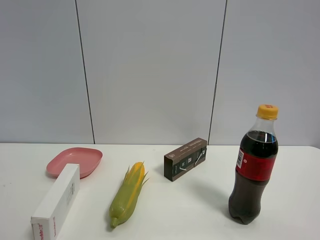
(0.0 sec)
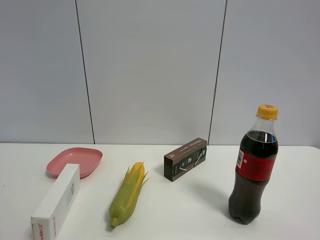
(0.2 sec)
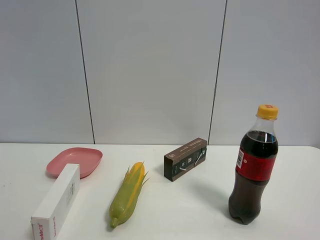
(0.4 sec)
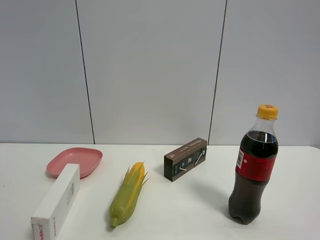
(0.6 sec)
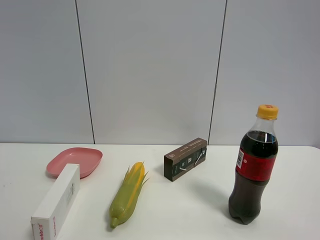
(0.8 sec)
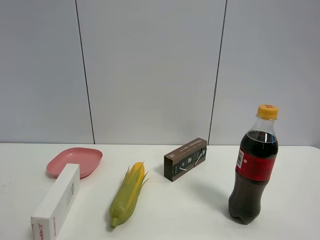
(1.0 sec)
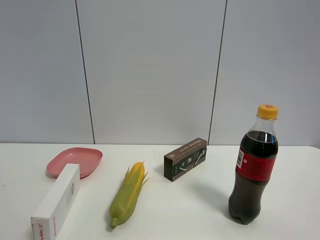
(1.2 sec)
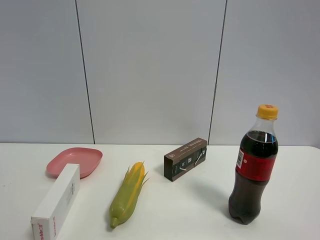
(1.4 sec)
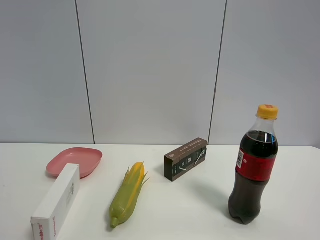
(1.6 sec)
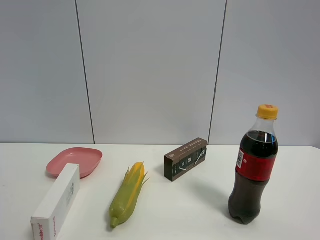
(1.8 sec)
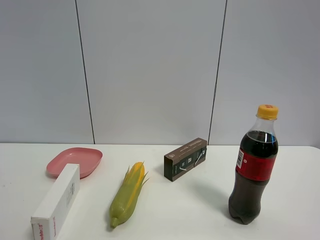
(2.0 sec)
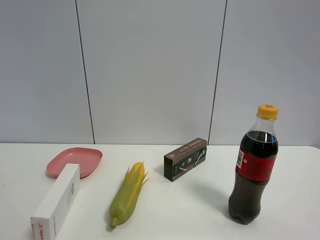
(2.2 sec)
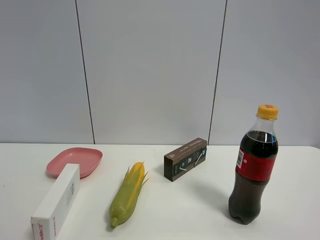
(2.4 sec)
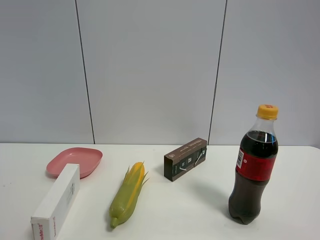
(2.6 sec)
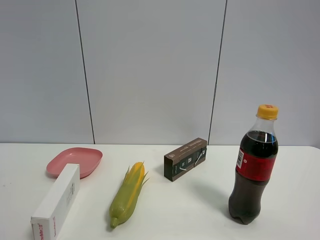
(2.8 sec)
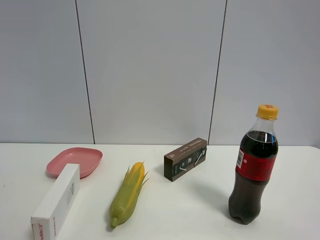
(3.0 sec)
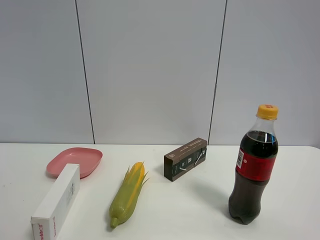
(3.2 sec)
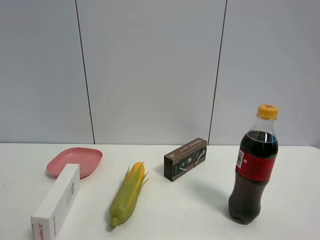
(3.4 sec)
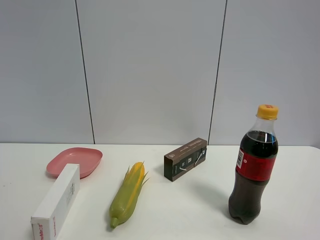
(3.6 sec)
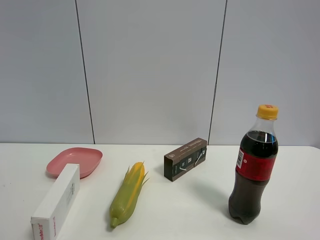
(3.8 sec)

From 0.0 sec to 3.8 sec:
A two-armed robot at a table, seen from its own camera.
Task of the whole recording: the gripper move the object.
From 2.6 sec to 3.8 sec: The two grippers keep their place.

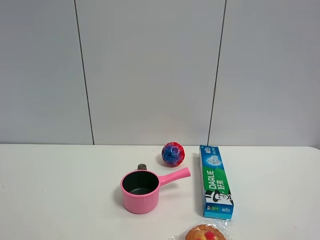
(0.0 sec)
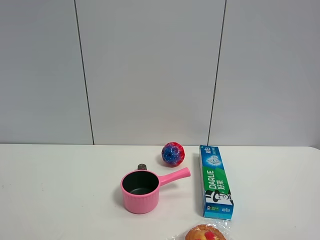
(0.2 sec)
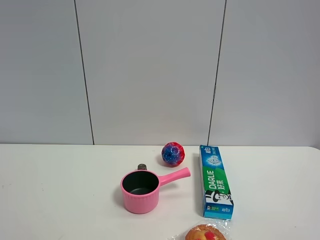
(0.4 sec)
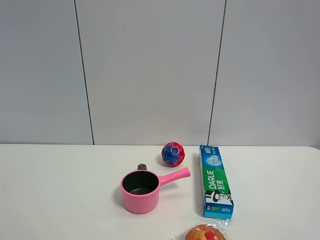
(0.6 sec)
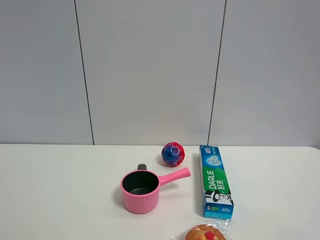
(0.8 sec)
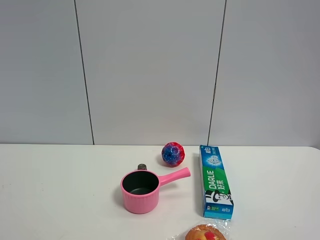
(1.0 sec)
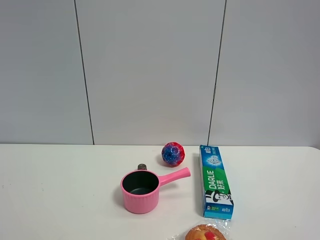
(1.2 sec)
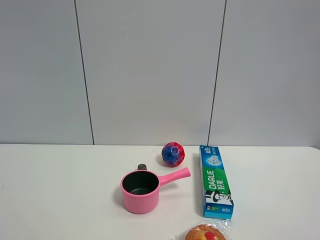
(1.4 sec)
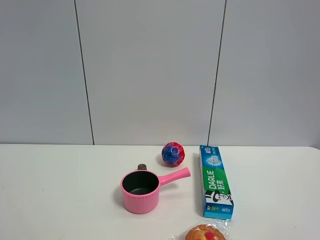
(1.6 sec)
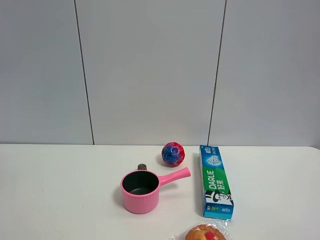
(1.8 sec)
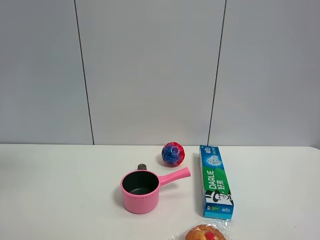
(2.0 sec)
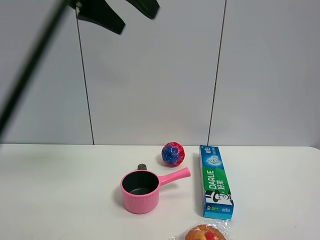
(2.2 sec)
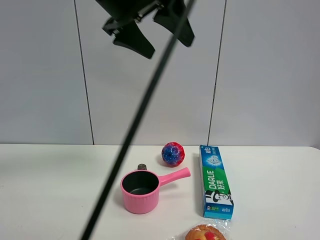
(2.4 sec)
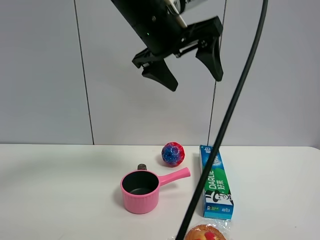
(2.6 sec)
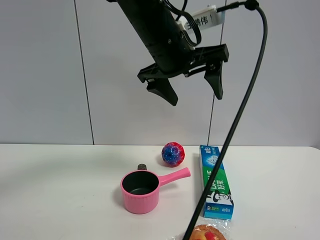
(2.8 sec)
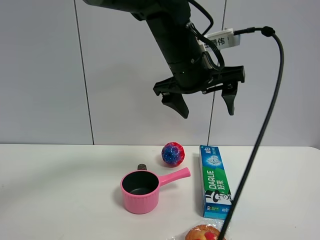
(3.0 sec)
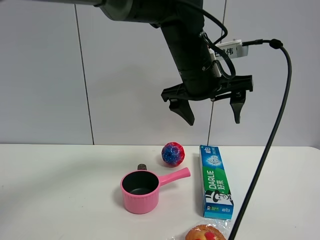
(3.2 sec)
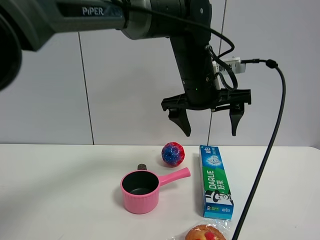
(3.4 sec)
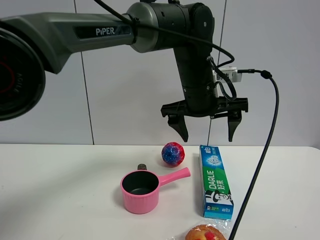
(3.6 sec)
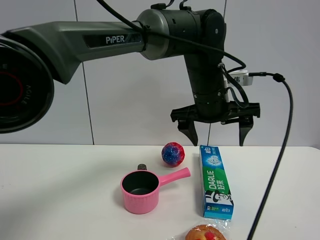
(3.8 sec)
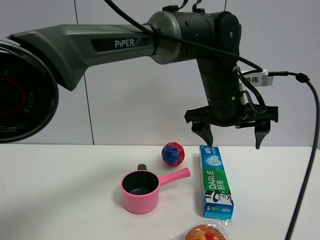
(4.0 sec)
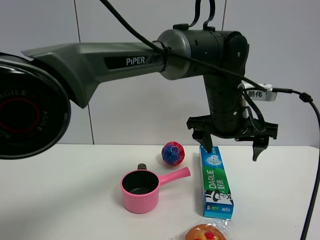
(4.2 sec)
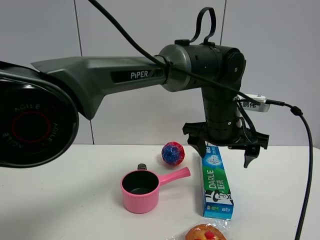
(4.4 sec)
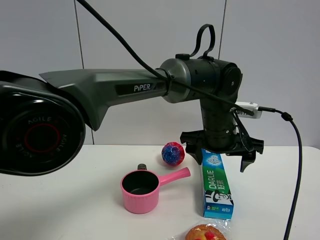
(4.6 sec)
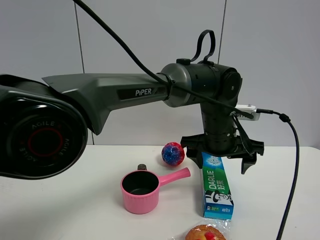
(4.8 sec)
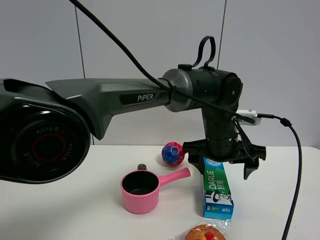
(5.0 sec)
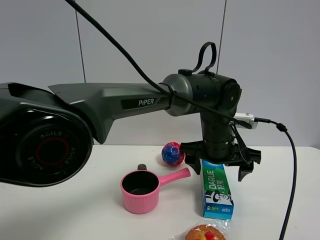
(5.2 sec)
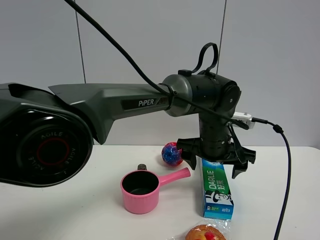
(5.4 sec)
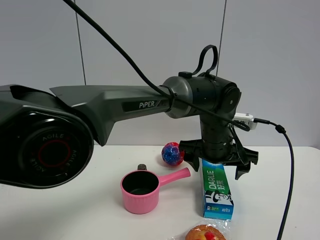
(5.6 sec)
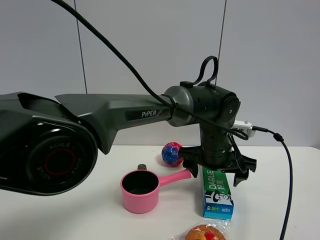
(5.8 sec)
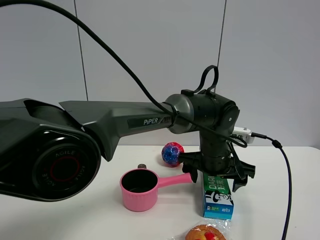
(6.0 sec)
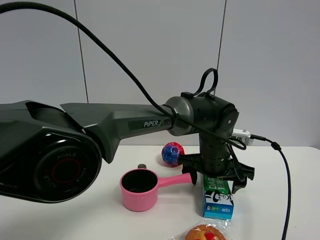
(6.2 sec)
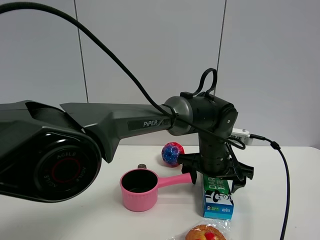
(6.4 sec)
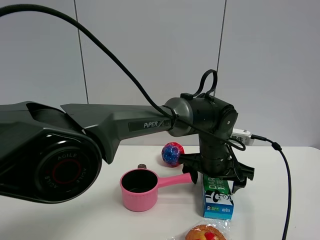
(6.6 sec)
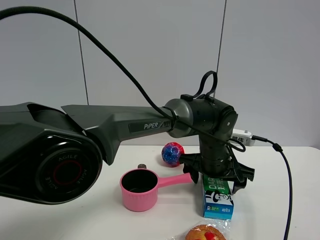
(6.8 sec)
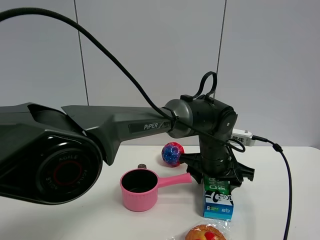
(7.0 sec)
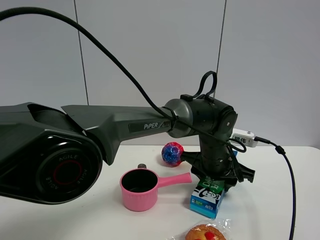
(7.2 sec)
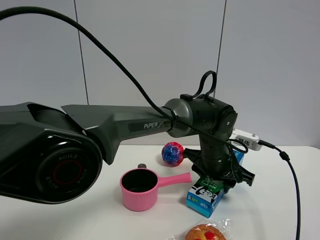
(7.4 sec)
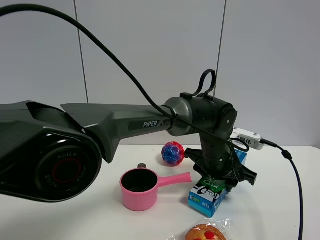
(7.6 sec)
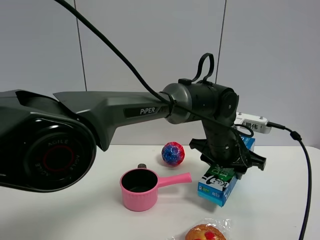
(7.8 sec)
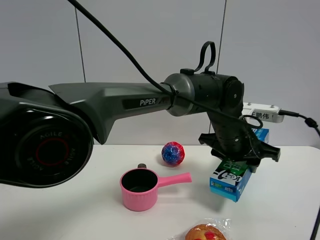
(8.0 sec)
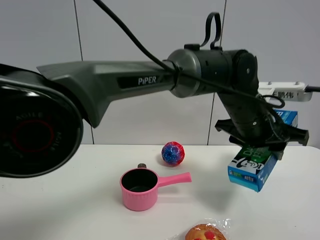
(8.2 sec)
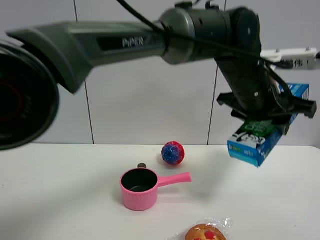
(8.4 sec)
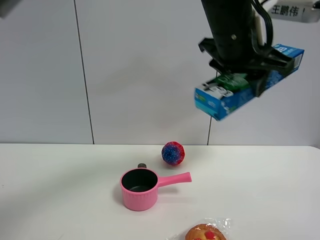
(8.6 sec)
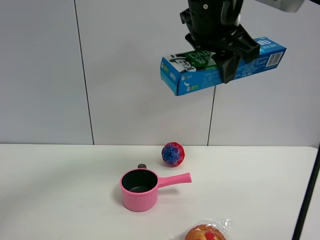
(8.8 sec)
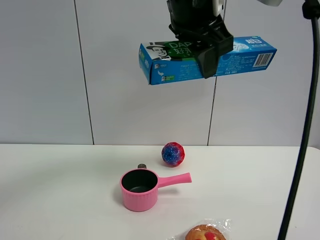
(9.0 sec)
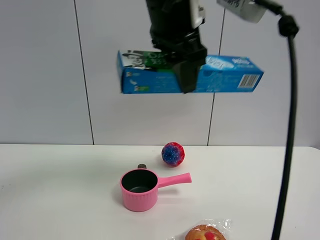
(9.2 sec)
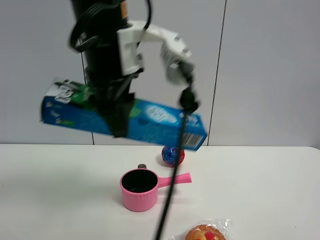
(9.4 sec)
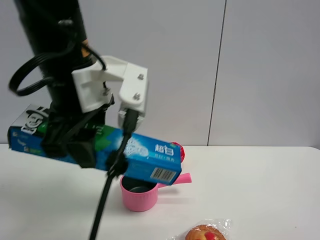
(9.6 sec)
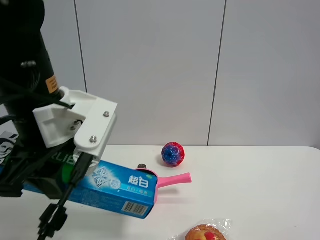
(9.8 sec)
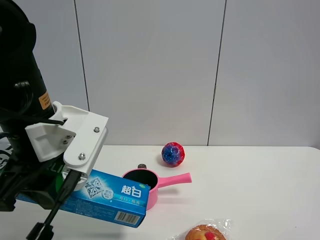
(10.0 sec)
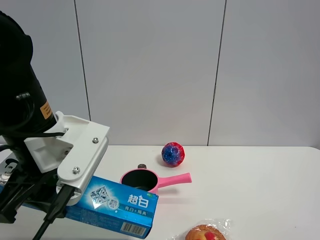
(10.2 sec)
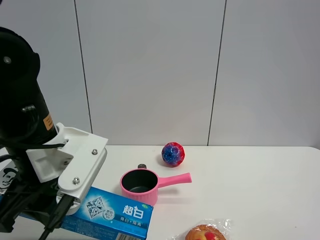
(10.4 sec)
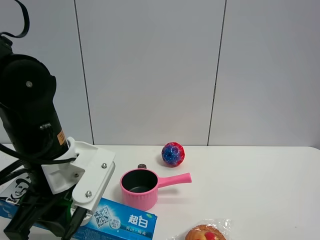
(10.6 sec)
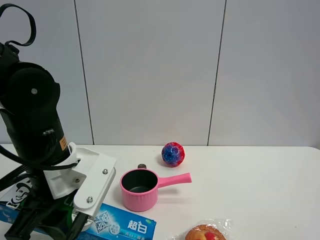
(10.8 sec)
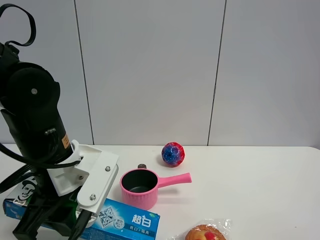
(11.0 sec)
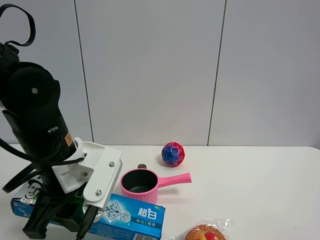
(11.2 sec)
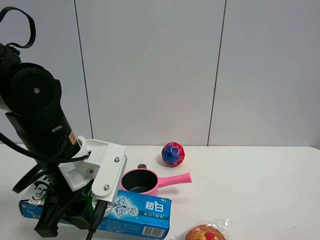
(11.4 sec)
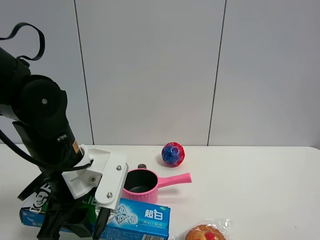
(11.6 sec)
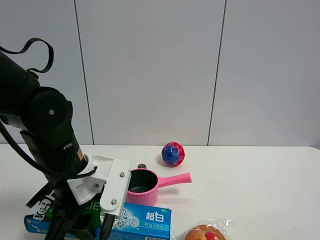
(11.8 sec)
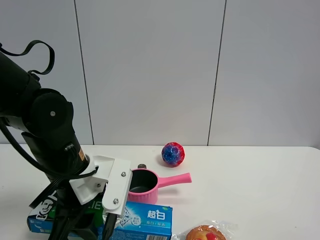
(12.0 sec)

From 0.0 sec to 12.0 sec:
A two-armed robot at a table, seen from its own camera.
Task of the whole recording: the gripper move the object.
Step, from 0.0 sec to 7.2 sec: Grasp the toothpaste with the left gripper.
From 1.6 sec to 3.0 sec: The left gripper shifts about 40 cm to the right, forward and downward.
From 3.0 sec to 4.4 sec: The left gripper shifts approximately 10 cm downward and to the right.
From 4.4 sec to 6.0 sec: The left gripper shifts about 10 cm downward.
From 6.0 sec to 7.6 sec: The left gripper closes up.
From 7.6 sec to 9.0 sec: The left gripper travels upward by roughly 25 cm.
From 9.0 sec to 10.4 sec: The left gripper is displaced downward and to the left by approximately 25 cm.
From 10.4 sec to 12.0 sec: The left gripper goes about 5 cm downward.

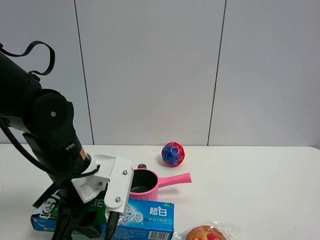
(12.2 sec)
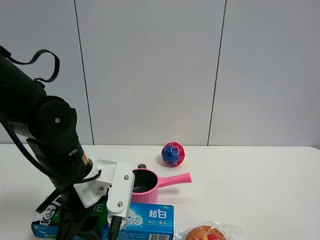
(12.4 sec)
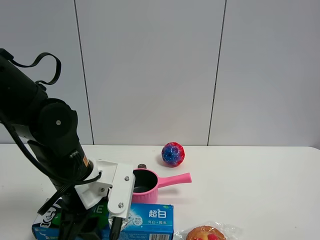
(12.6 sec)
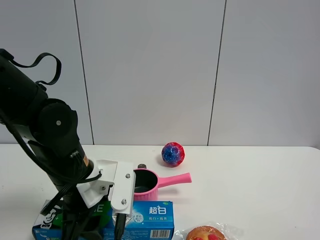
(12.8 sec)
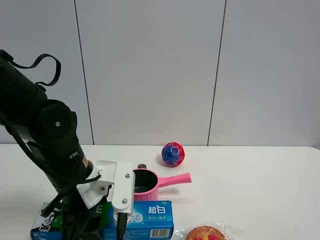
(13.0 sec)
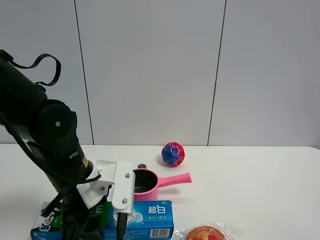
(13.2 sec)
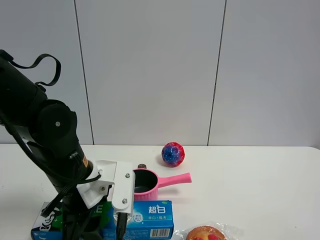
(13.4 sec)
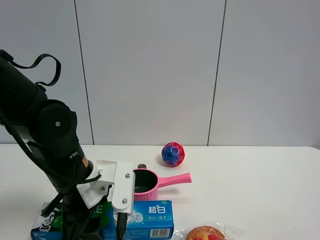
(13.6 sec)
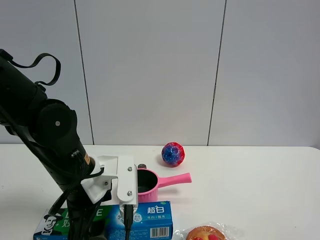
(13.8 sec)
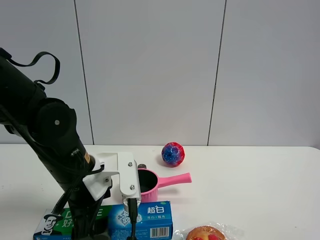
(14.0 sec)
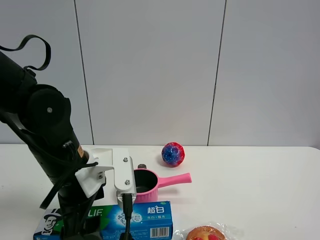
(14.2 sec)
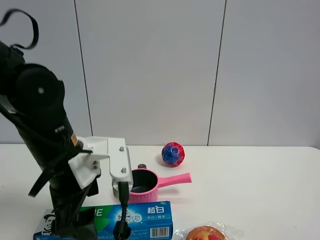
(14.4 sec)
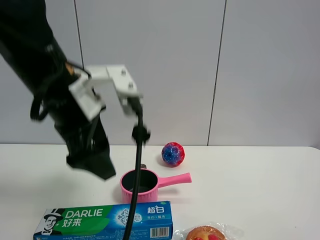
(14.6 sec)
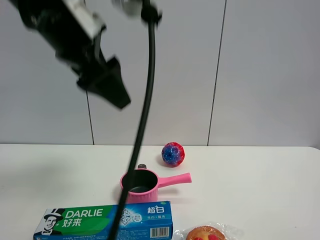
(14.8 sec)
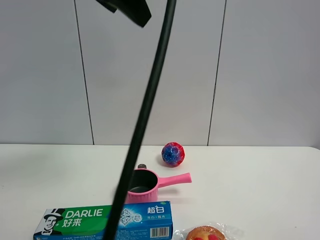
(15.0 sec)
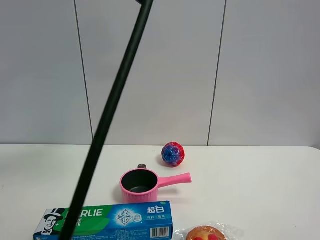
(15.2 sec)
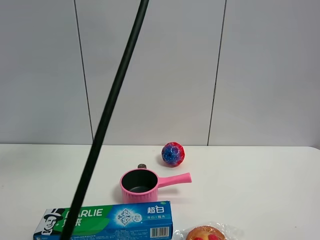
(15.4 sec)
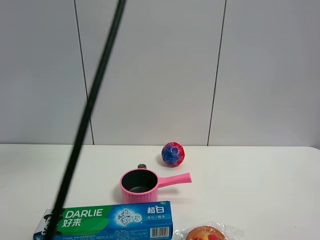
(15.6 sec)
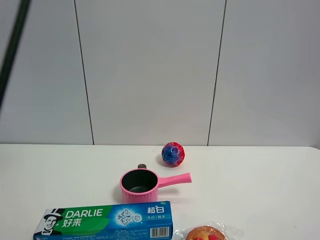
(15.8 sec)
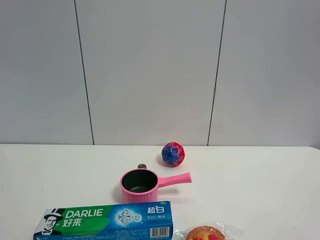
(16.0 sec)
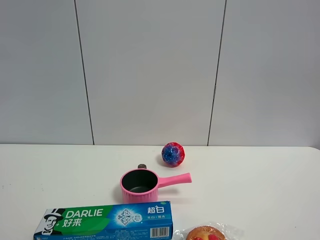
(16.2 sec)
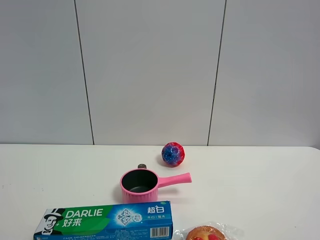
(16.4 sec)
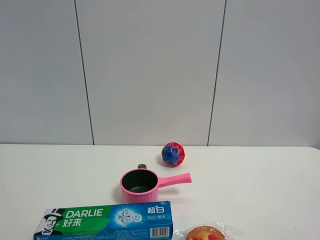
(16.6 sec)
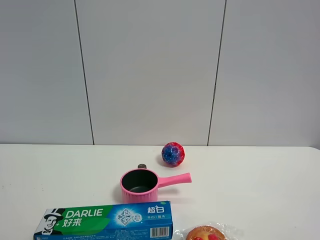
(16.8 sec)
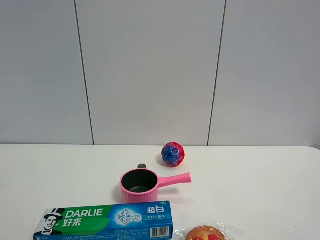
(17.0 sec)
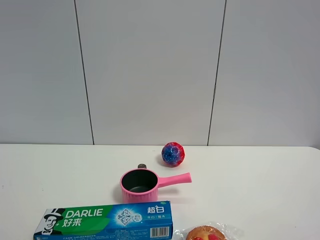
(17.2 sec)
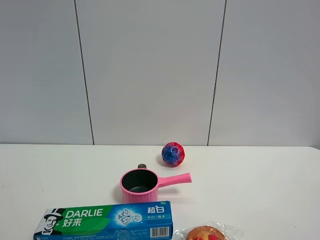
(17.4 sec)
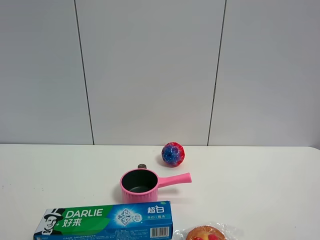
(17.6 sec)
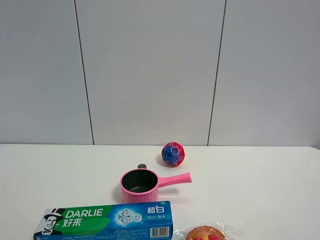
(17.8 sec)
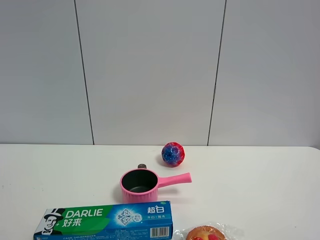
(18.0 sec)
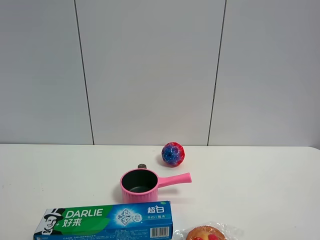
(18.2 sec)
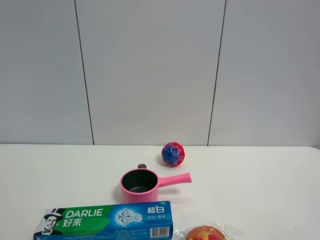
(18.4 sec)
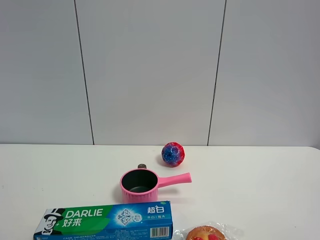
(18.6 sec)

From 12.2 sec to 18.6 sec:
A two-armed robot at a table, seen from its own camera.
Task of the whole recording: the gripper move the object.
From 12.2 sec to 13.8 sec: The left gripper opens.
From 13.8 sec to 15.4 sec: The left gripper shifts some 35 cm upward.
From 15.4 sec to 17.0 sec: The left gripper heads backward, to the left and downward, covering some 40 cm.
